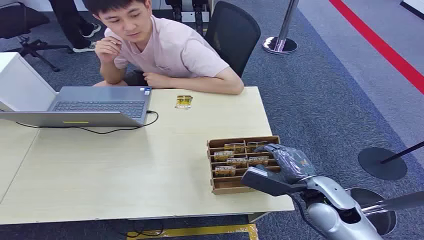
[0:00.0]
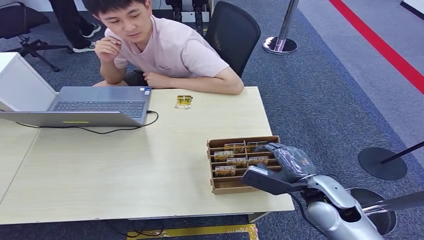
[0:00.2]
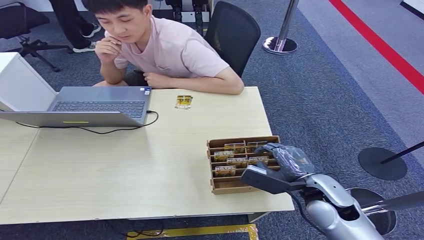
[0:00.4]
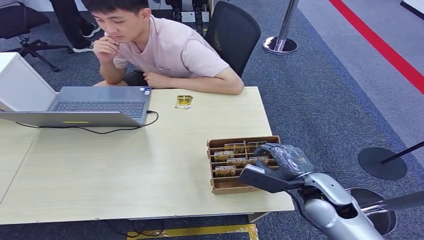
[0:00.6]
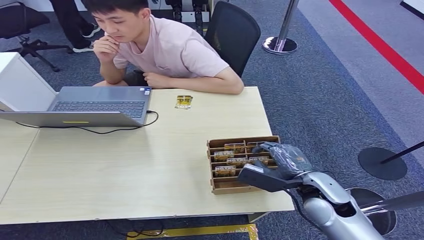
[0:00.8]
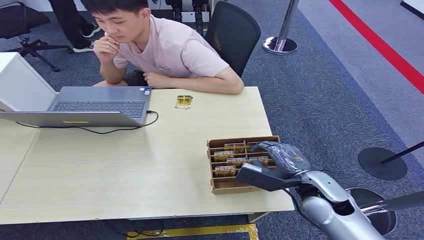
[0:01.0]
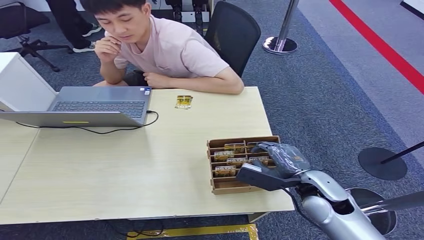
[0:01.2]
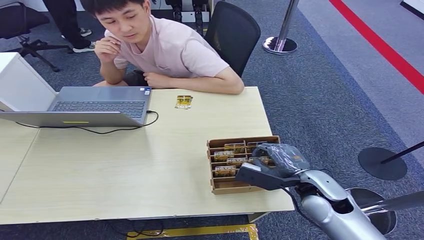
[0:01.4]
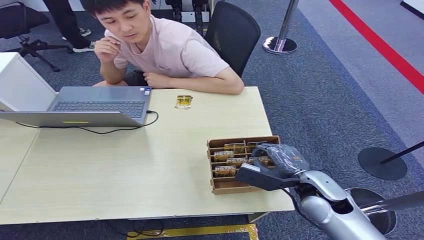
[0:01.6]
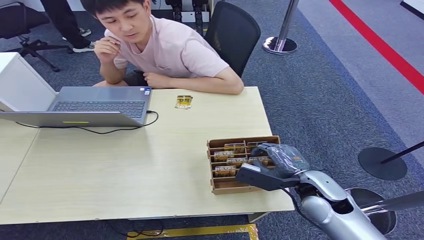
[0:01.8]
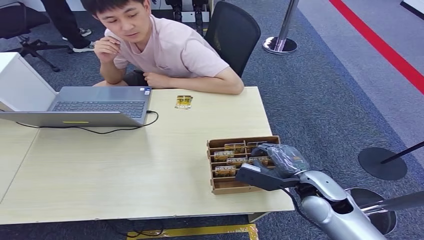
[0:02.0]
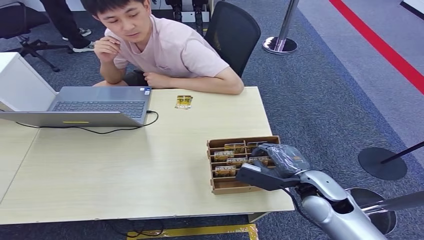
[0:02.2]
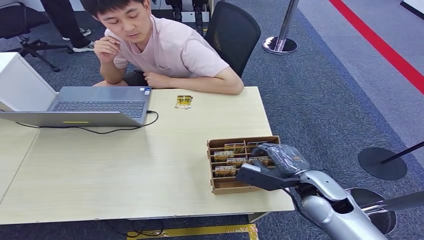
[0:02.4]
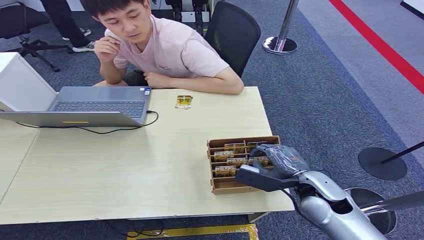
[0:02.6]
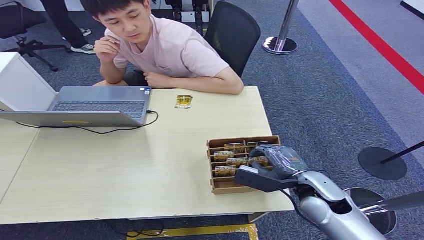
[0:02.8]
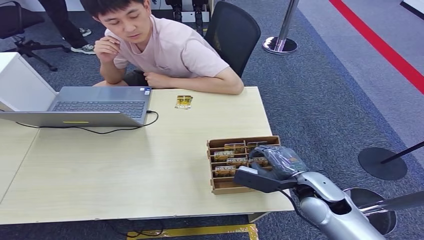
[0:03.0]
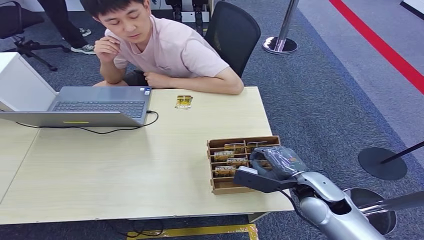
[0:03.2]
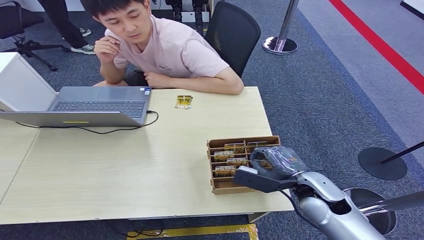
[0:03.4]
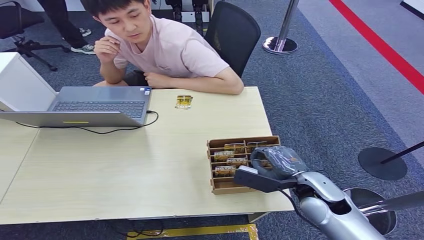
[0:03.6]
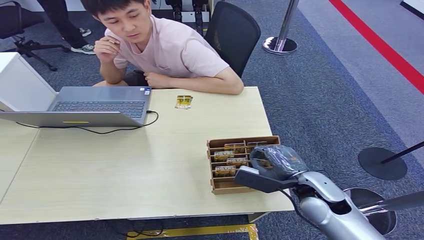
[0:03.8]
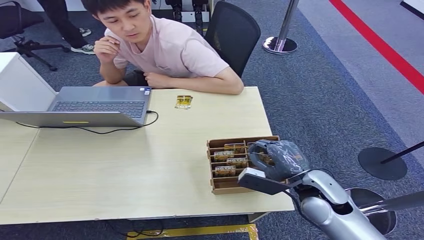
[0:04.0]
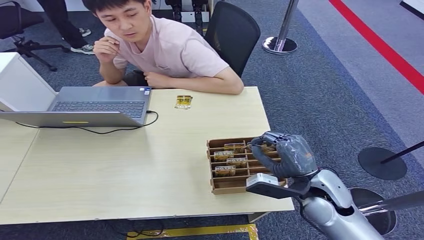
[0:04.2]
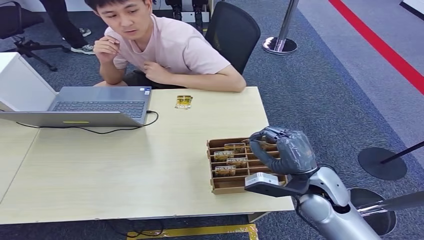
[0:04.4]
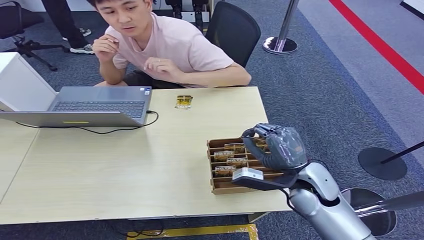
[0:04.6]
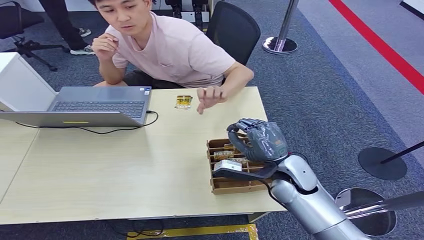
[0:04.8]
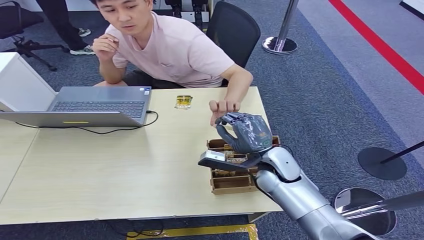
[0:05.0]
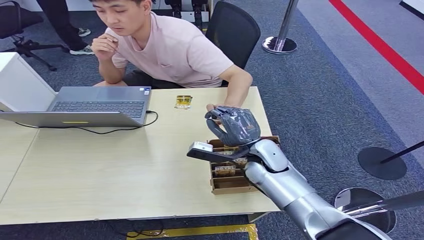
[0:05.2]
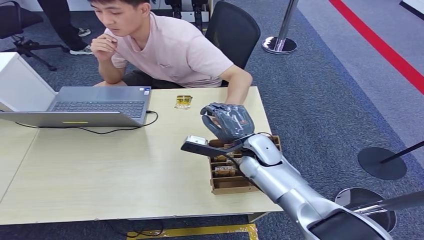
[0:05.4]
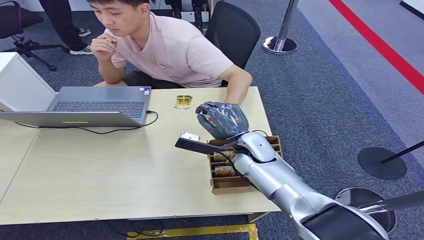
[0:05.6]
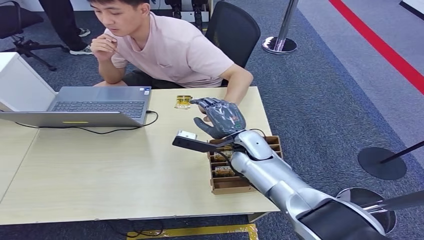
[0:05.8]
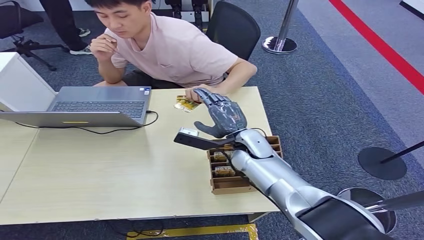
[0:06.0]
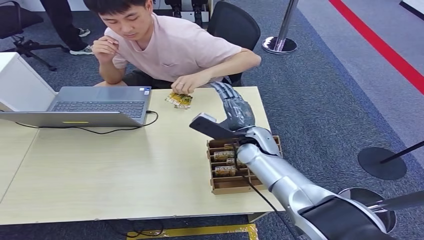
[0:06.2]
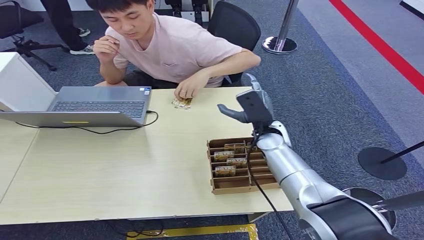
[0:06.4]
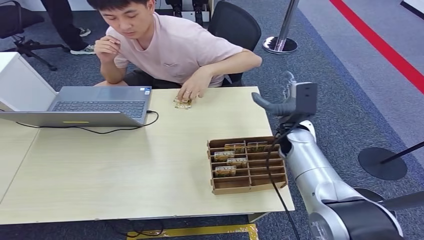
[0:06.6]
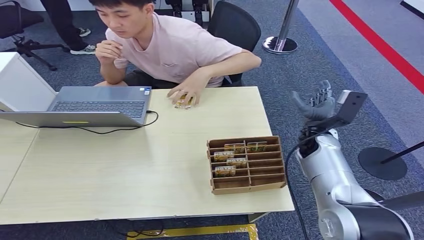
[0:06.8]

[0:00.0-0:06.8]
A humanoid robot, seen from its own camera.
Step, 0:00.0 to 0:04.0: Pick up the room card from the card holder.
Step, 0:04.2 to 0:06.8: Hand the room card to the target.
0:01.4 to 0:02.8: Neither hand changes place.
0:02.8 to 0:04.0: The hands move only a little.
0:04.0 to 0:05.4: The right hand moves forward and to the left, about 15 cm.
0:05.4 to 0:06.8: The right hand goes approximately 15 cm to the right.
